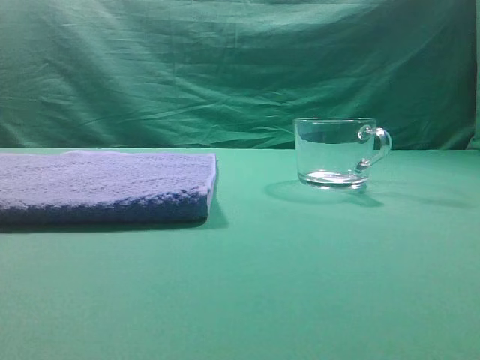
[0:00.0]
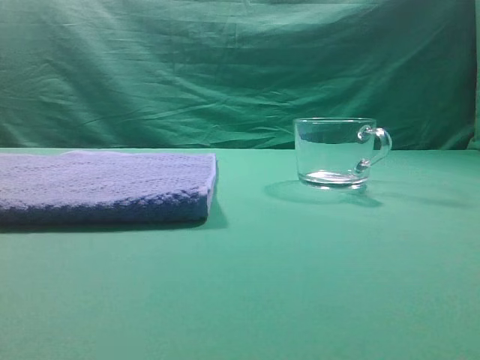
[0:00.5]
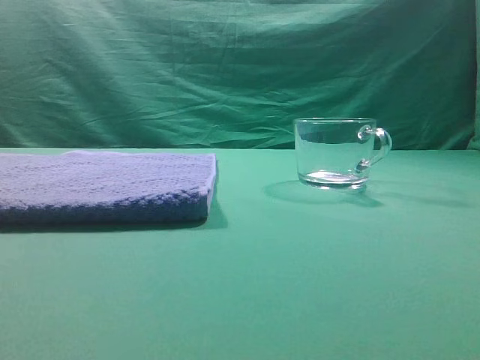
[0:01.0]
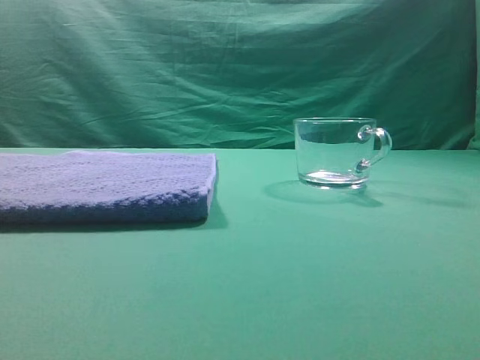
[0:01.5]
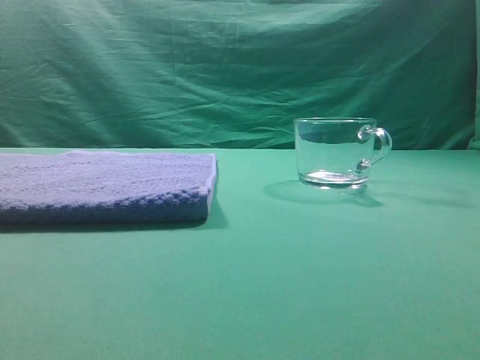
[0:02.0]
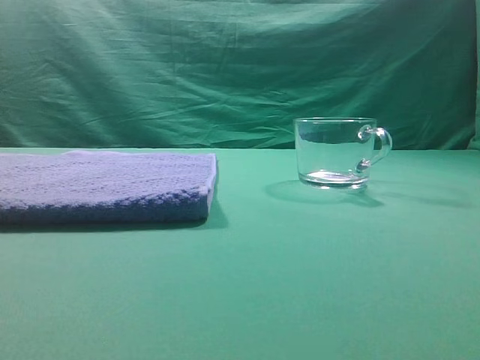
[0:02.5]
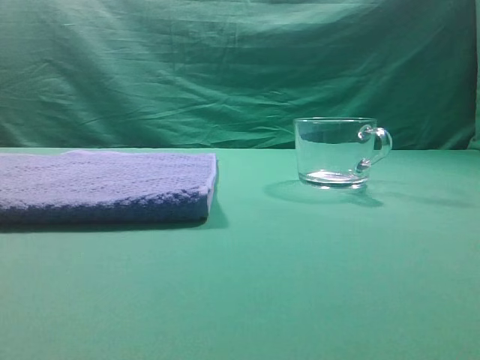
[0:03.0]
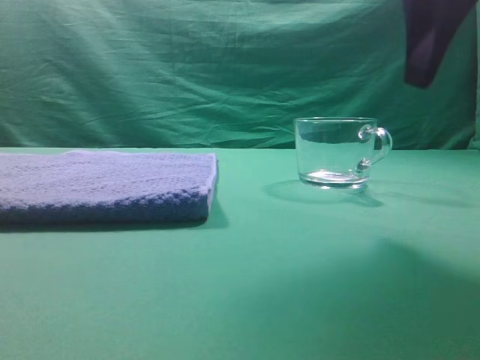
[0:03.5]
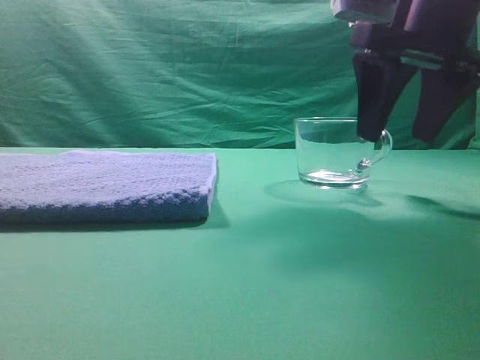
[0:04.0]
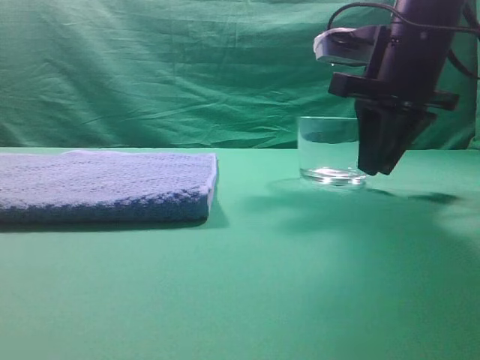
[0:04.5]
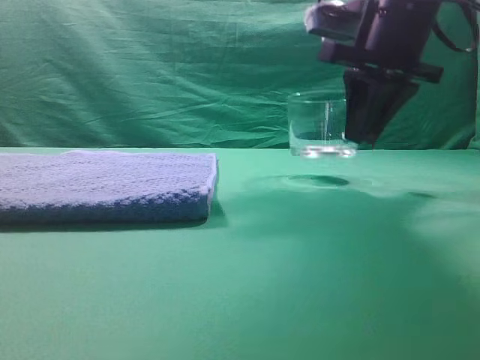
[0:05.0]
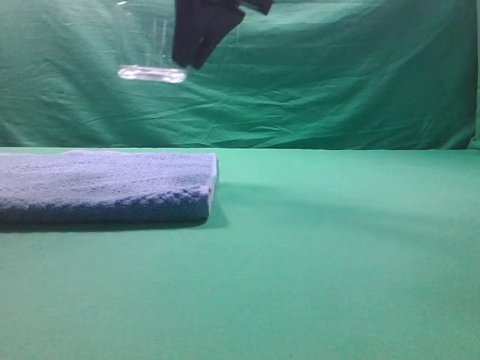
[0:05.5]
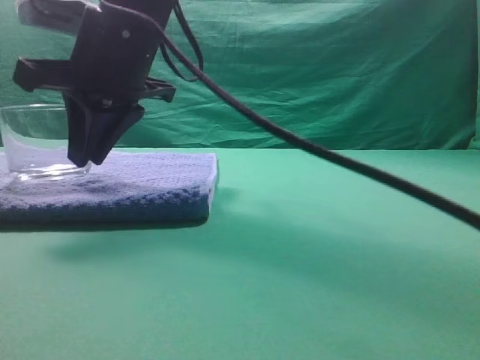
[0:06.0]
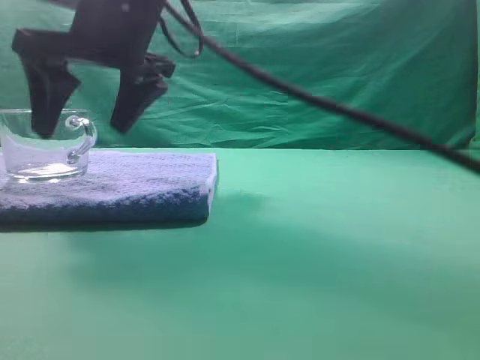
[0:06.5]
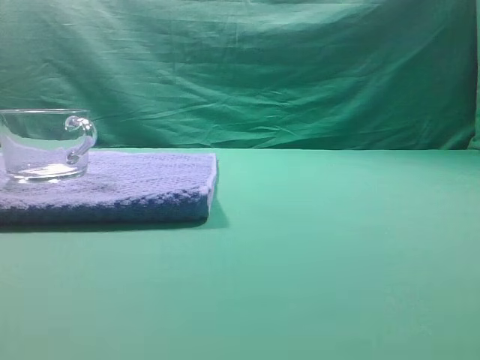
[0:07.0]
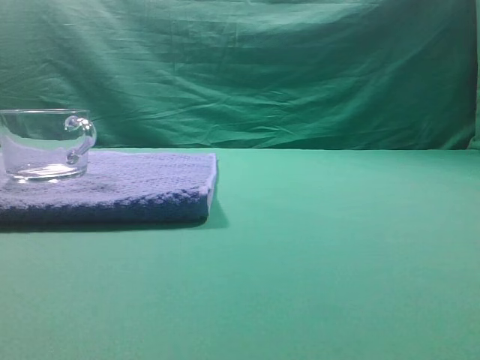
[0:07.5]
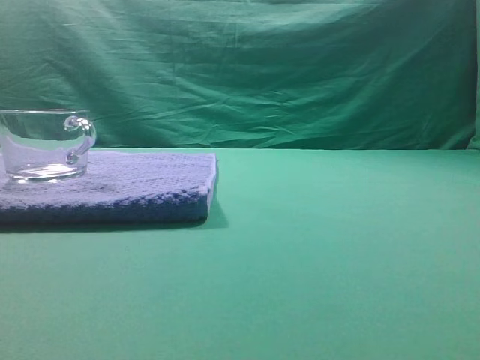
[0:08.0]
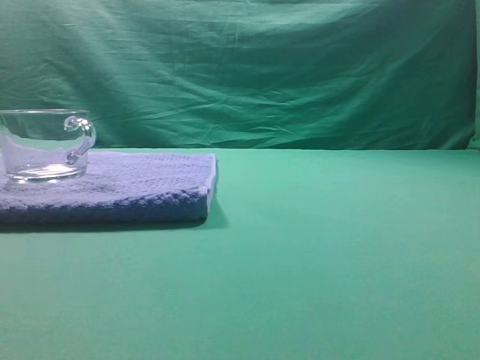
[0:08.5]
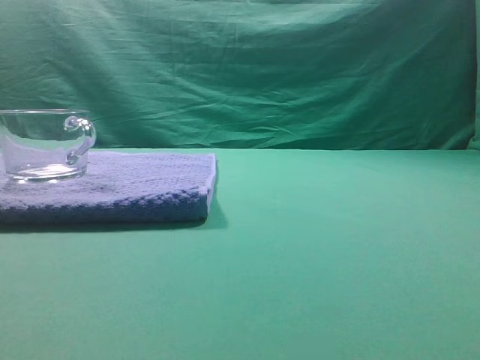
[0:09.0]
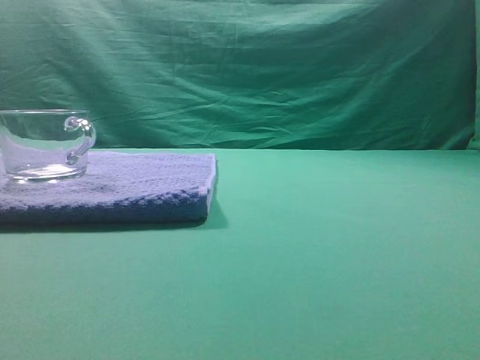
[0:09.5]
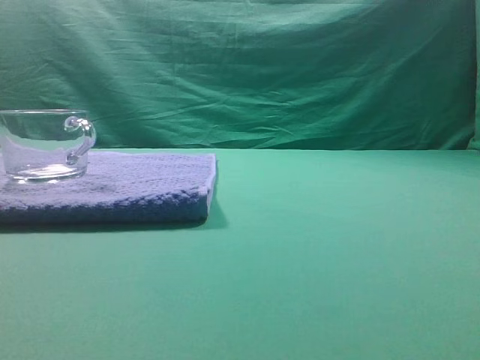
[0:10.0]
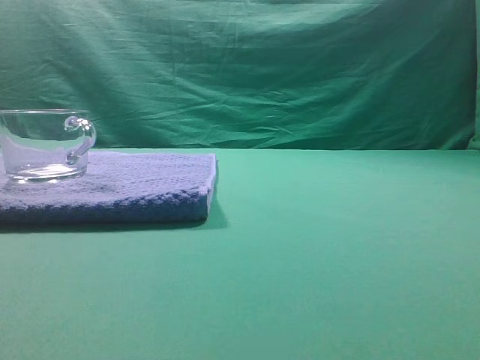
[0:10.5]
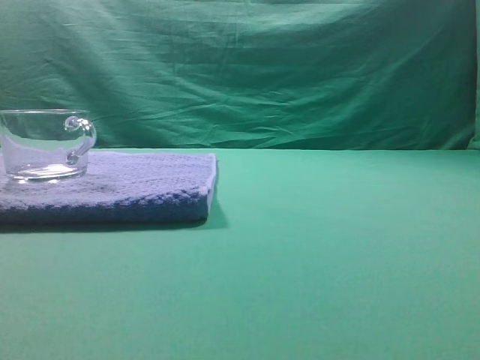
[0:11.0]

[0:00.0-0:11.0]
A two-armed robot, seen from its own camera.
Task of the whole recording: grasp the transparent glass cup and place it within the blue towel.
Step, 0:00.0 to 0:04.5: Grasp the transparent glass cup.
Step, 0:05.5 to 0:06.5: Place the glass cup on the blue zone.

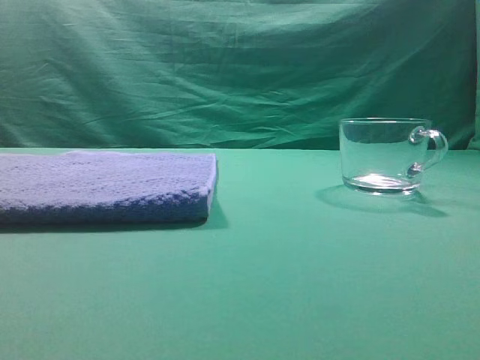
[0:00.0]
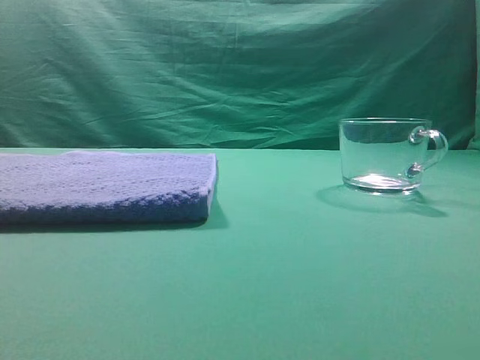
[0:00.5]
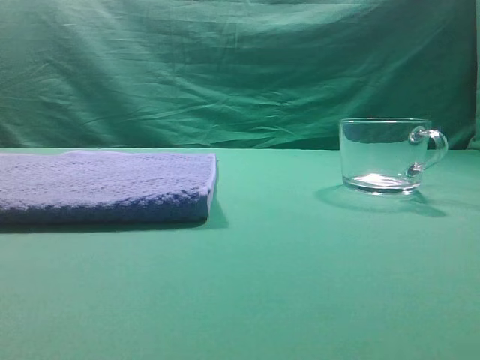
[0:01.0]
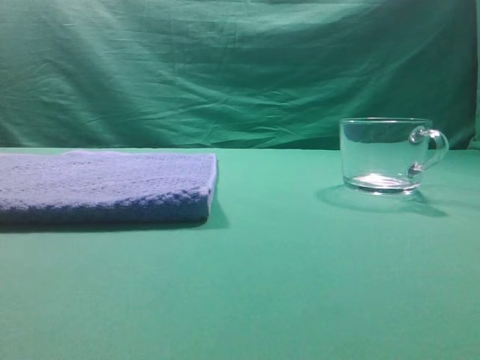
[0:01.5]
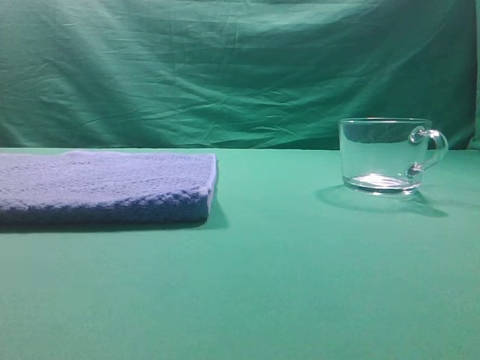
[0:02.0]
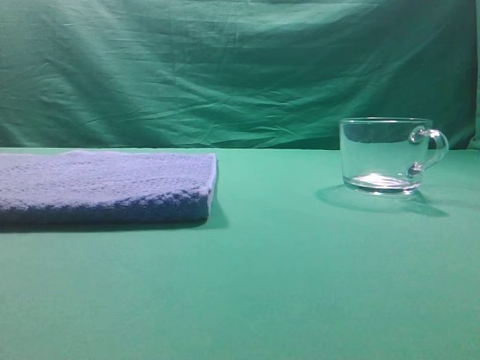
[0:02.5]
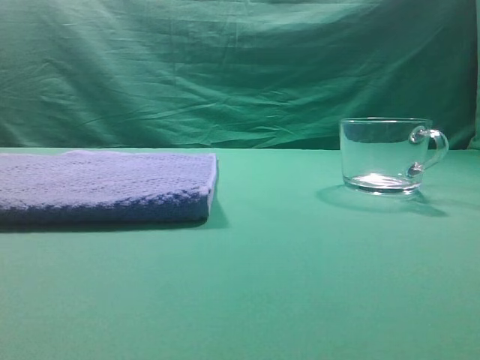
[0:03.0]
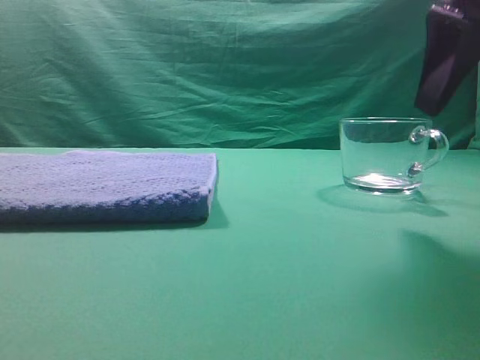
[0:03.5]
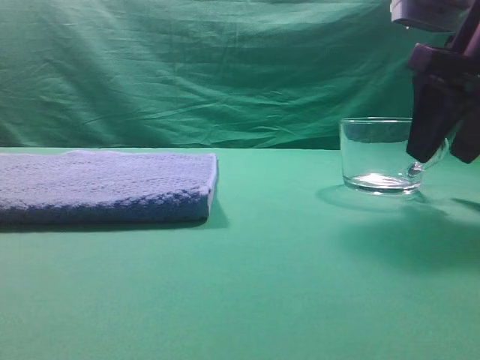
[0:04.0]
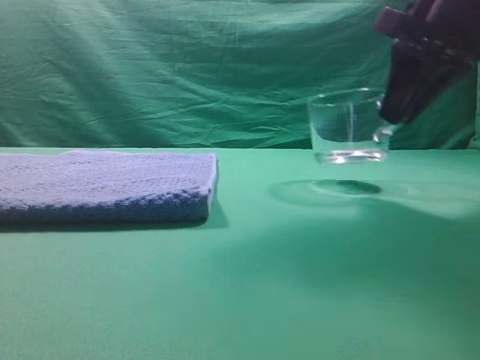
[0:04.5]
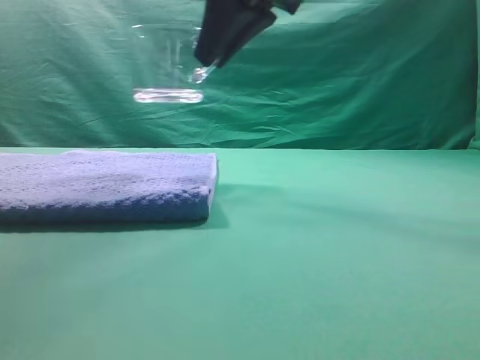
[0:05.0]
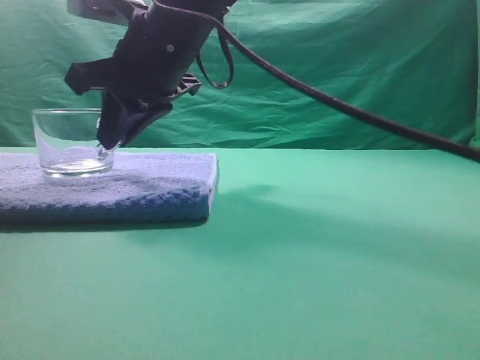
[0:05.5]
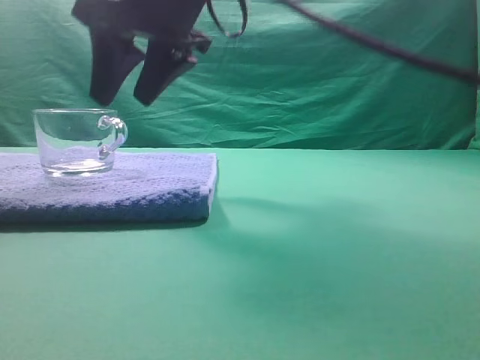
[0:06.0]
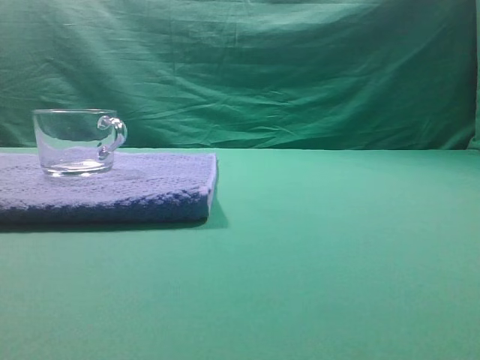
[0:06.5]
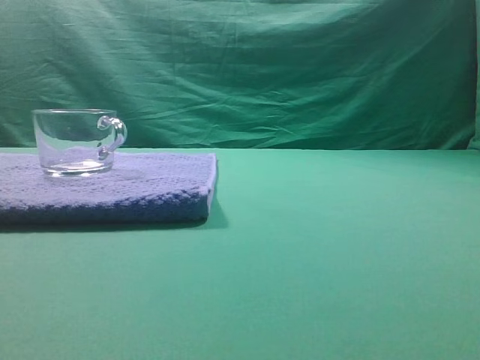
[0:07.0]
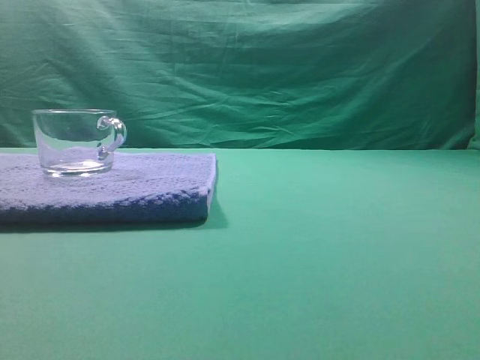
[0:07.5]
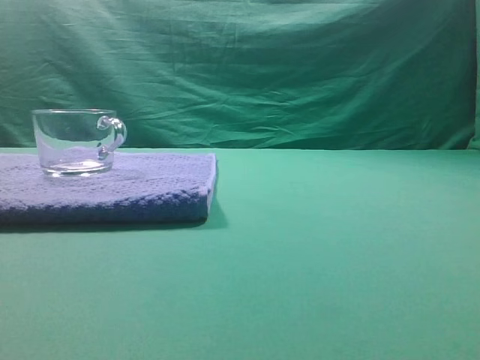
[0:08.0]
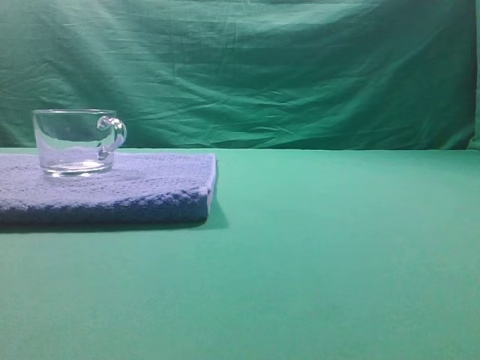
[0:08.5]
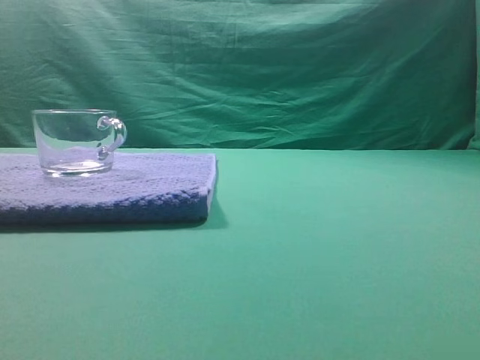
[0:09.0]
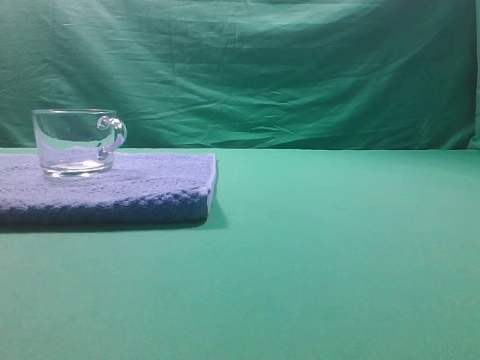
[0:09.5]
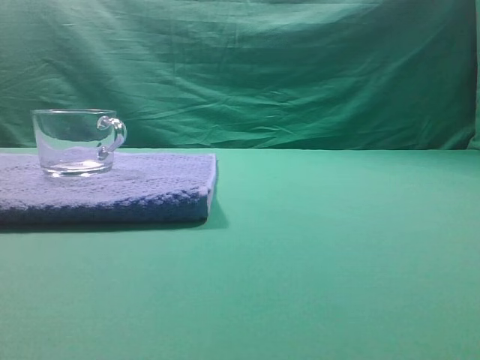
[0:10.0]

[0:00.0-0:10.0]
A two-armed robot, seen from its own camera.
Task of the whole recording: grasp the transparent glass cup and place it within the blue towel.
Step, 0:00.0 to 0:04.5: Grasp the transparent glass cup.
Step, 0:05.0 to 0:06.0: Place the glass cup on the blue zone.

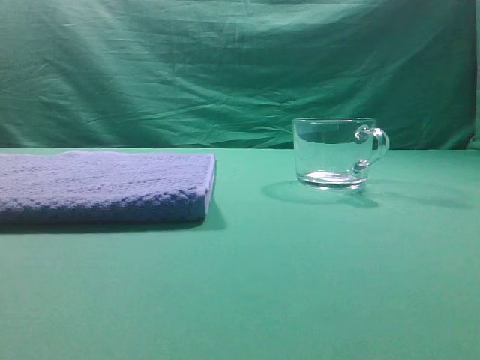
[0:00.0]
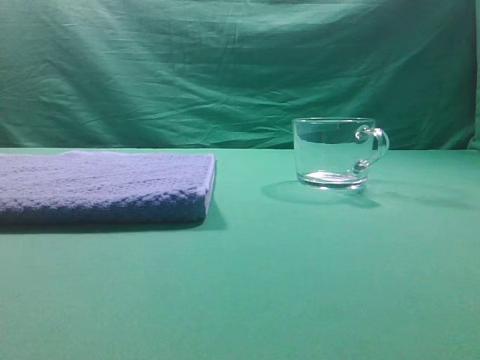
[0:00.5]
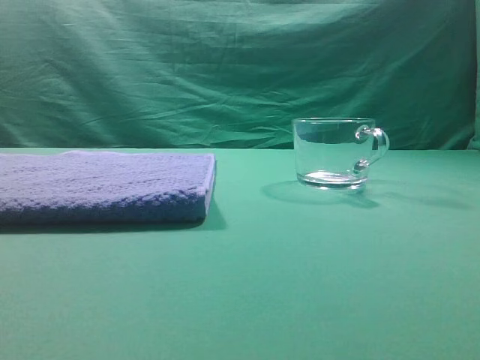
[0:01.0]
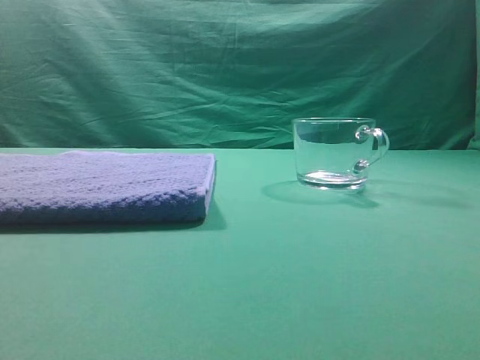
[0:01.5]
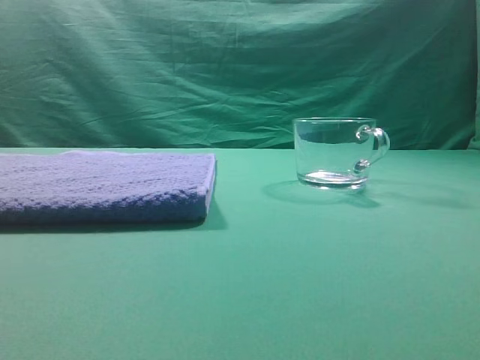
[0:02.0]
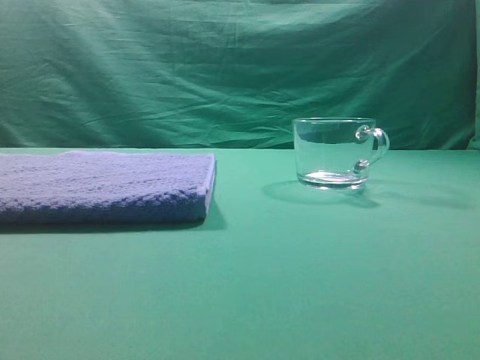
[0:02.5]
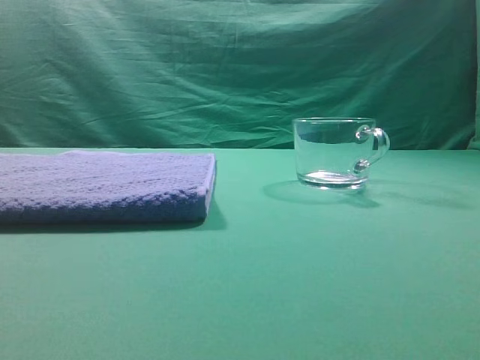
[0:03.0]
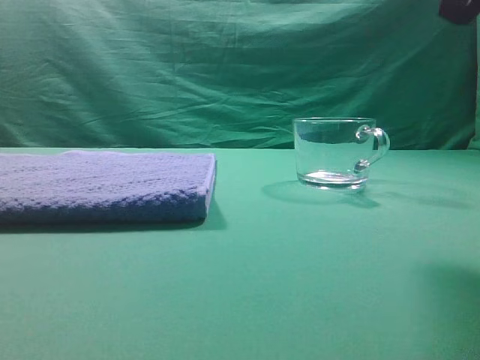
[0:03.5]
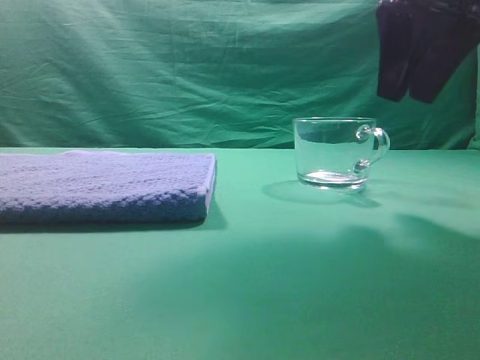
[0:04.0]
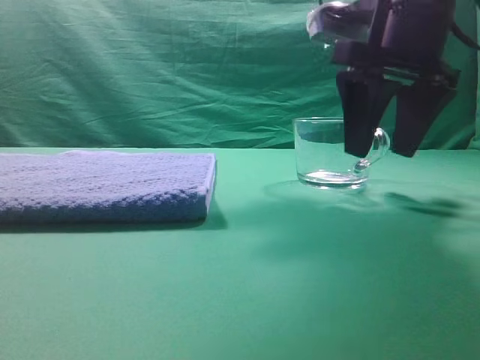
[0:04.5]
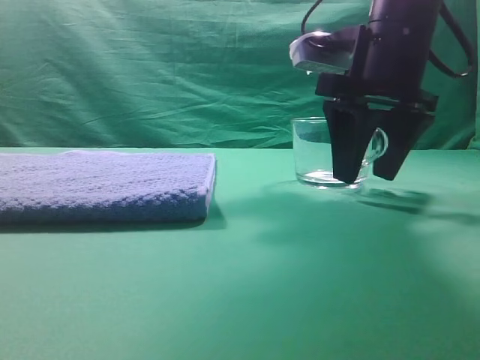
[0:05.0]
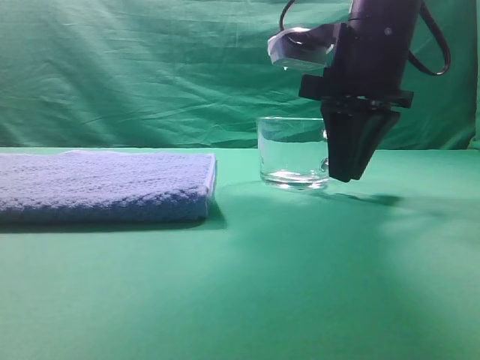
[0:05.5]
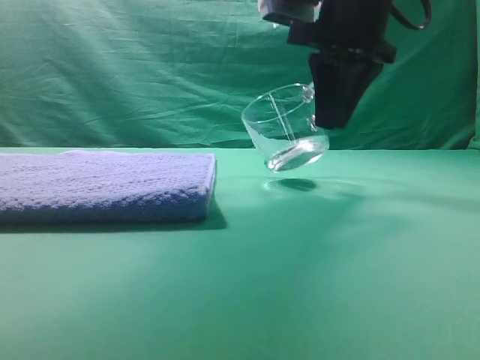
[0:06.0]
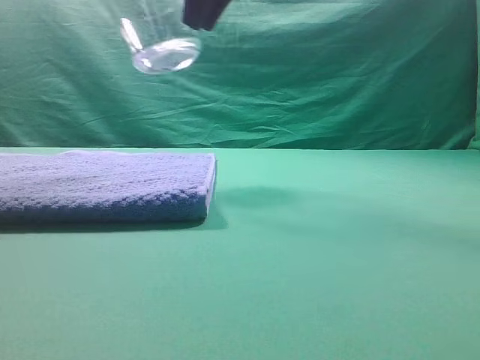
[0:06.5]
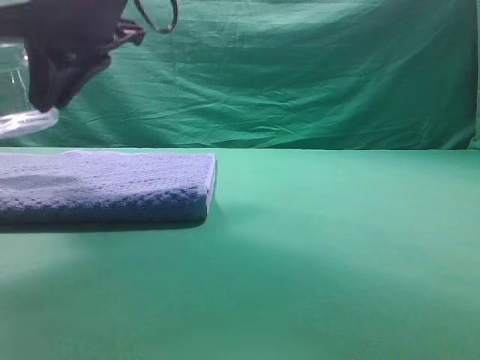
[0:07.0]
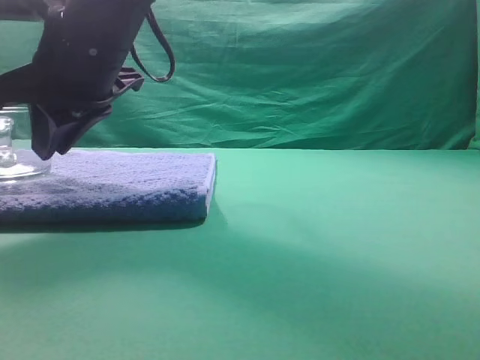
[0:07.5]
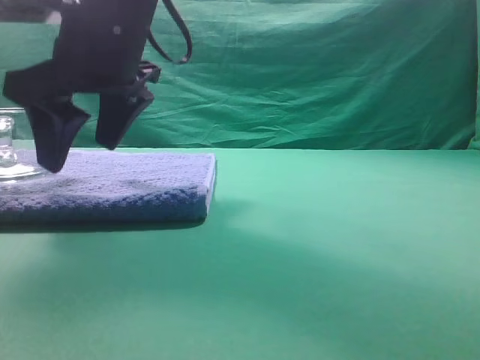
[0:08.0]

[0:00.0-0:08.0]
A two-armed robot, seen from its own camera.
Task of the whole recording: grasp the transparent glass cup and place it within the blue towel.
Step, 0:00.0 to 0:06.0: Grasp the transparent glass cup.
